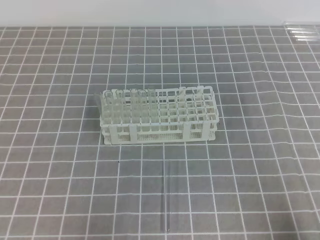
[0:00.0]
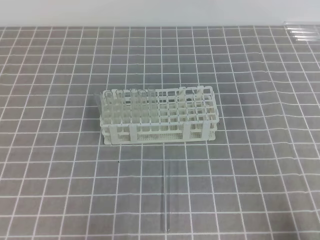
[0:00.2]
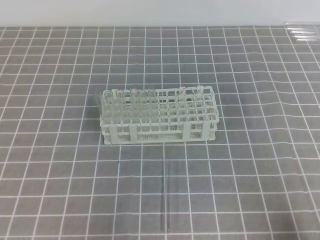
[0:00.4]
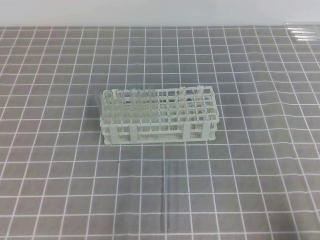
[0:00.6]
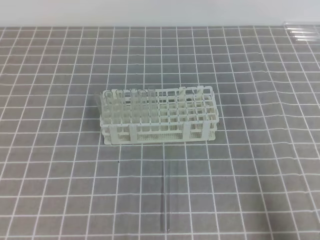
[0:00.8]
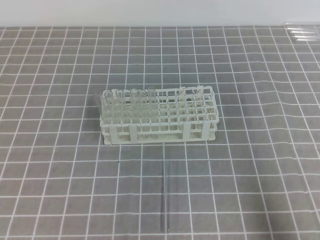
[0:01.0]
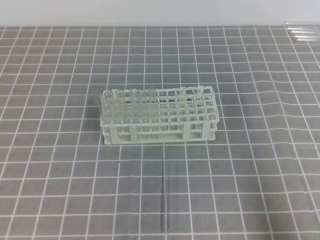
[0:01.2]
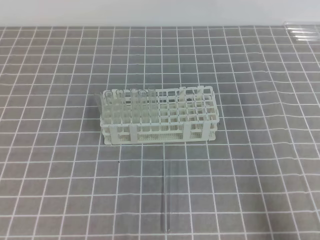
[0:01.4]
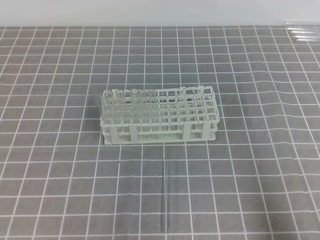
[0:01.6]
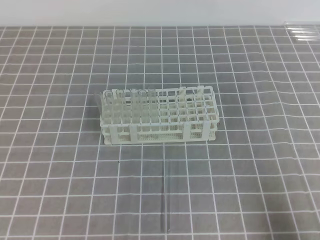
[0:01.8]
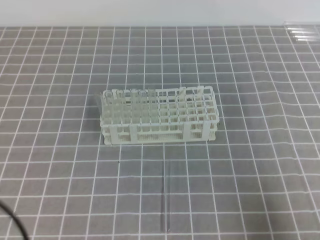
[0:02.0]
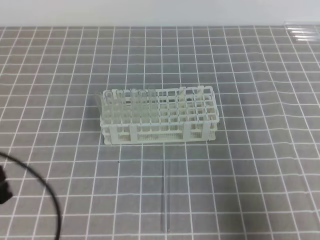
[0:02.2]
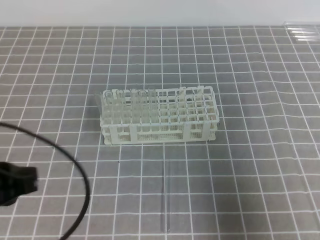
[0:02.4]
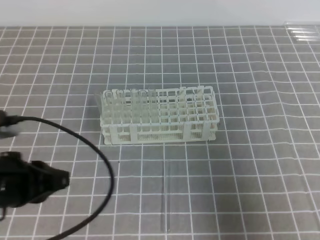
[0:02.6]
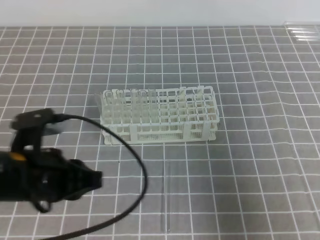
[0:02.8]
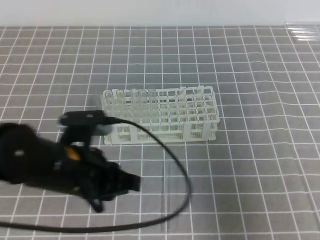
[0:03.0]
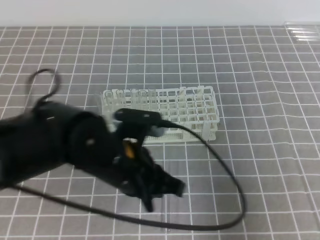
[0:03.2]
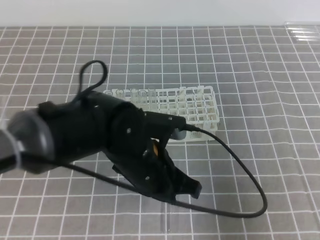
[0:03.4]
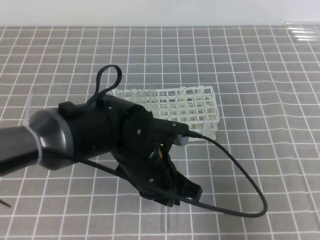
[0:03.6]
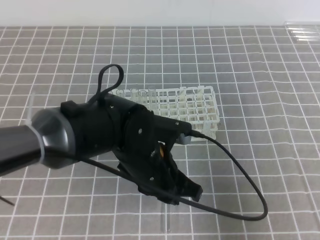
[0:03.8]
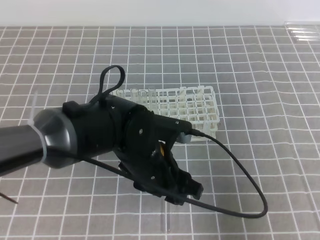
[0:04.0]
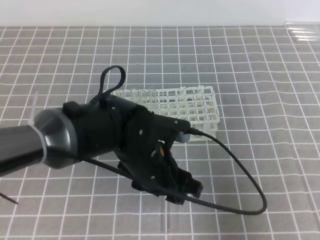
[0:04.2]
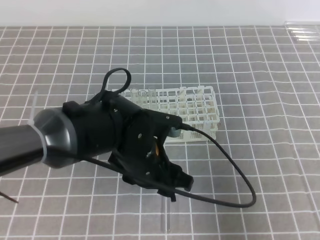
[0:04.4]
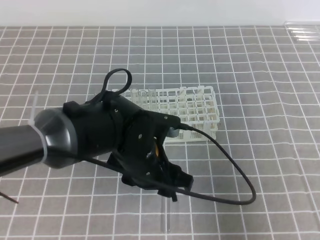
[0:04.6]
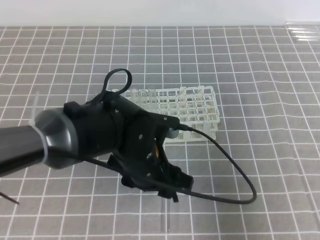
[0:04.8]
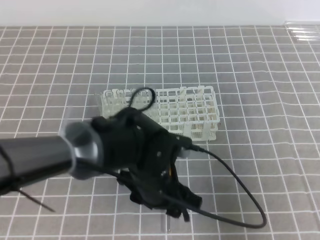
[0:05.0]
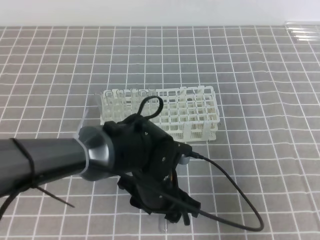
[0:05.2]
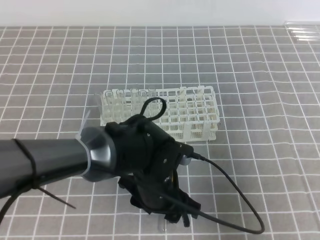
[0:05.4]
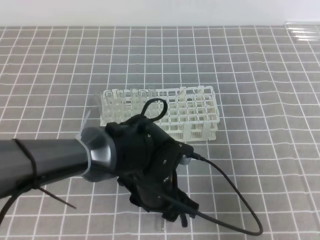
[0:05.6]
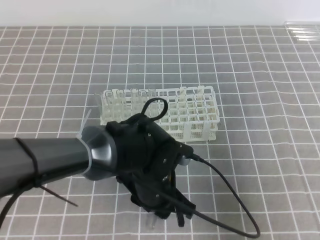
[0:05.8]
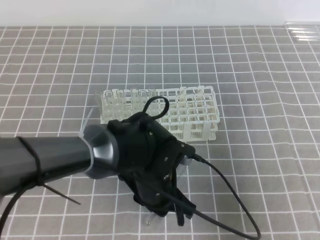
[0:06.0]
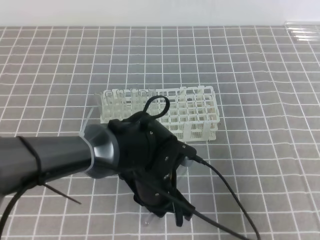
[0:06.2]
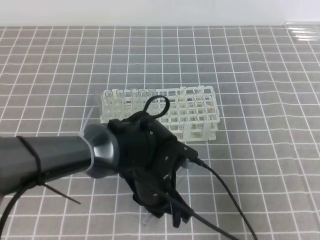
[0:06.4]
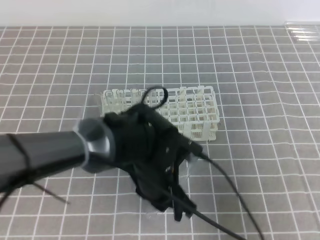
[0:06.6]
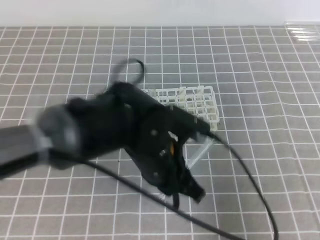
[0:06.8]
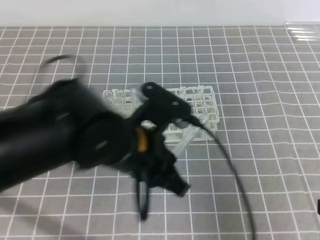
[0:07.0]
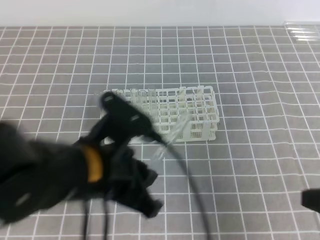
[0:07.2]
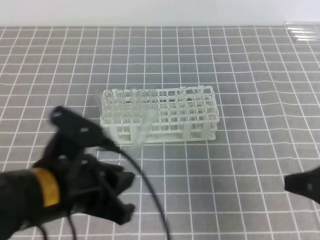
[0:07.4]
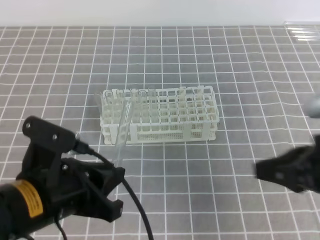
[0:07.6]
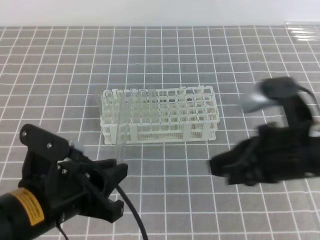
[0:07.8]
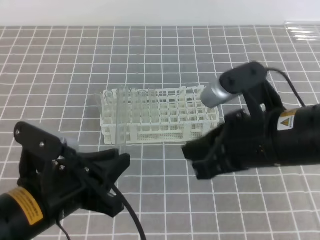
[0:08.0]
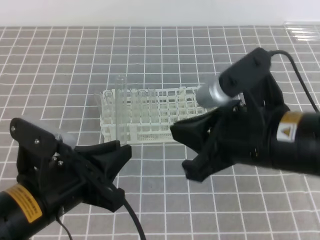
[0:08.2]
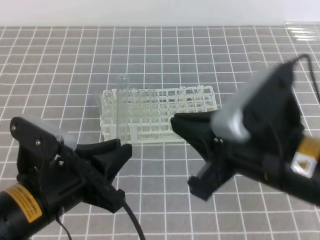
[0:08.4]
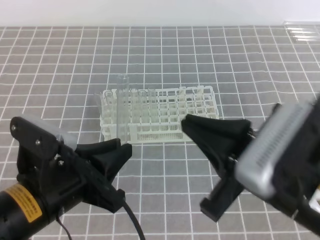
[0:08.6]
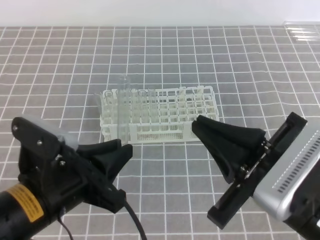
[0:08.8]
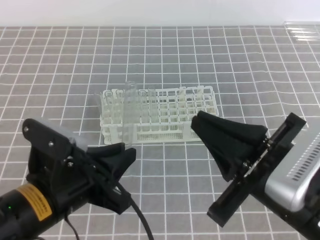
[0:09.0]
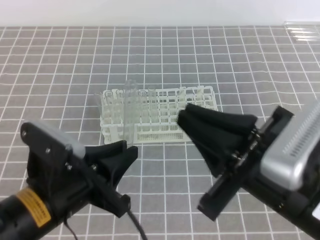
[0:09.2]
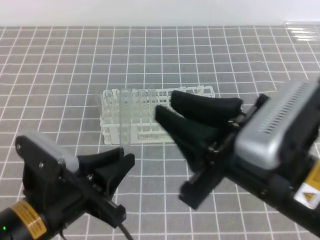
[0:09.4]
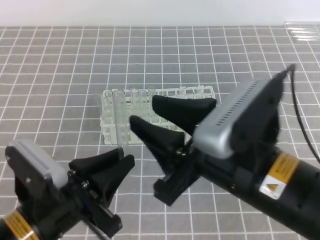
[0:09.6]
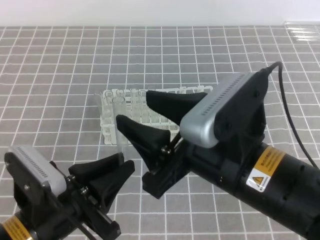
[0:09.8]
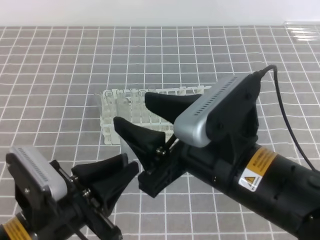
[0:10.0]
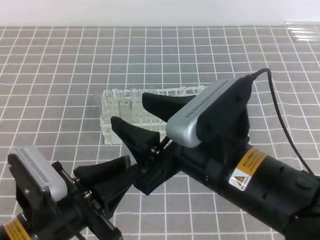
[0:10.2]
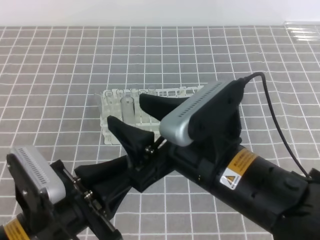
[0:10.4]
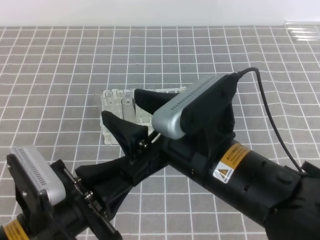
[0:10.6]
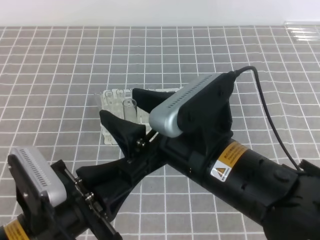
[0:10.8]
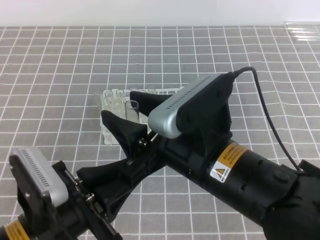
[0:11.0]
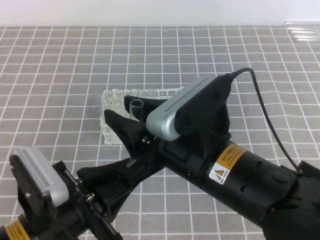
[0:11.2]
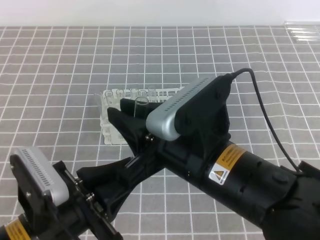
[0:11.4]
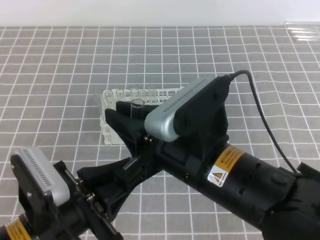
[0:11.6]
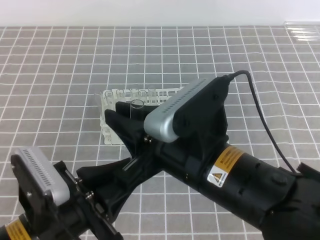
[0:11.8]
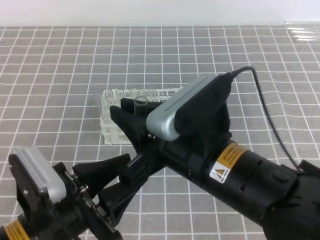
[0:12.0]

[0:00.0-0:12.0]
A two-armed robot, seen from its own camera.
0:01.6 to 0:03.0: The right gripper moves forward and upward, about 5 cm. The left gripper goes approximately 20 cm to the right and forward.
0:03.0 to 0:04.4: The left gripper goes some 10 cm to the right, and opens up.
0:04.4 to 0:06.0: The left gripper closes its fingers.
0:06.0 to 0:07.6: The right gripper is displaced to the left and forward by approximately 10 cm. Meanwhile the left gripper travels to the left, upward and backward by approximately 20 cm.
0:07.6 to 0:09.0: The right gripper heads to the left, covering approximately 10 cm.
0:09.0 to 0:10.4: The right gripper travels to the left by approximately 5 cm, and opens.
0:10.4 to 0:12.0: The left gripper opens its fingers. The right gripper closes its fingers.

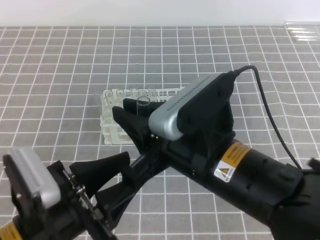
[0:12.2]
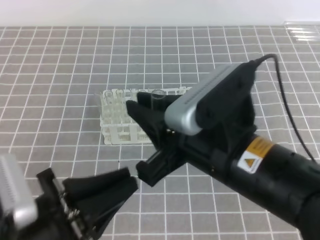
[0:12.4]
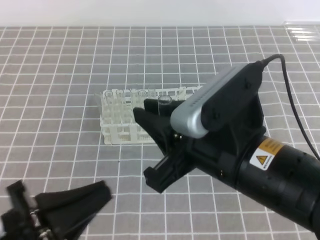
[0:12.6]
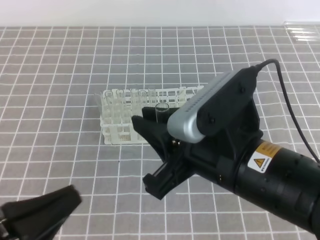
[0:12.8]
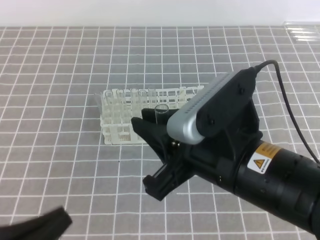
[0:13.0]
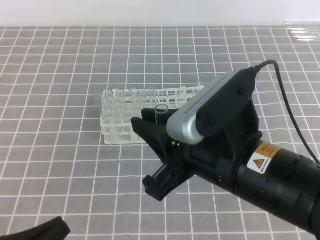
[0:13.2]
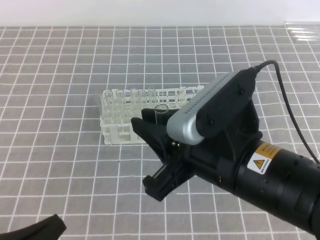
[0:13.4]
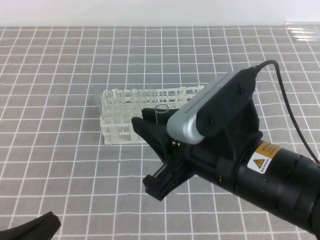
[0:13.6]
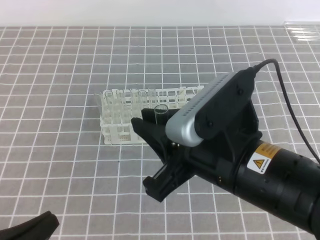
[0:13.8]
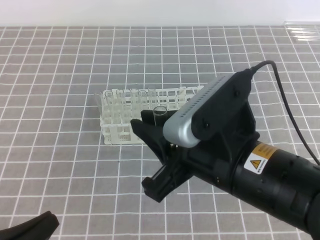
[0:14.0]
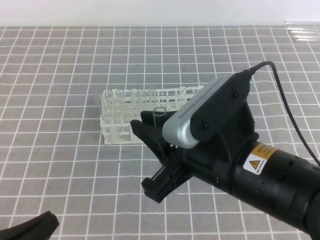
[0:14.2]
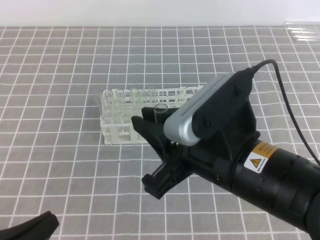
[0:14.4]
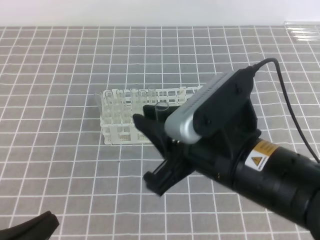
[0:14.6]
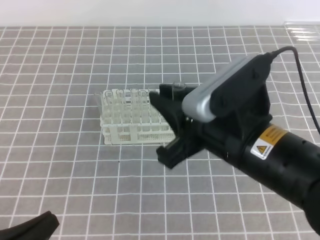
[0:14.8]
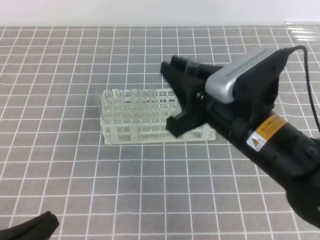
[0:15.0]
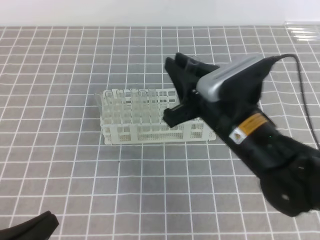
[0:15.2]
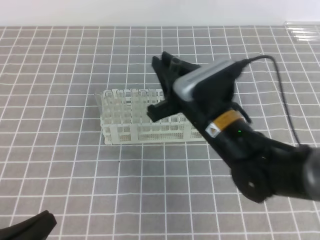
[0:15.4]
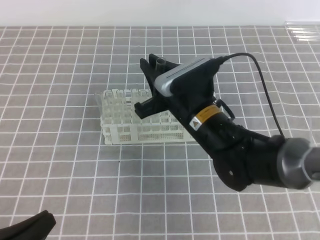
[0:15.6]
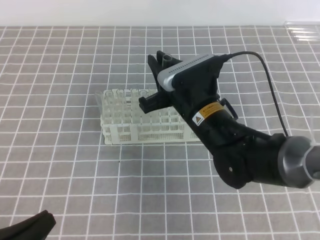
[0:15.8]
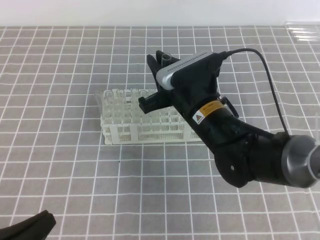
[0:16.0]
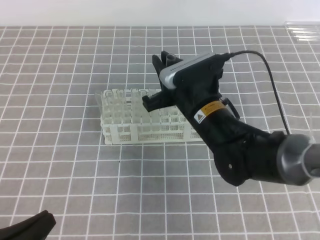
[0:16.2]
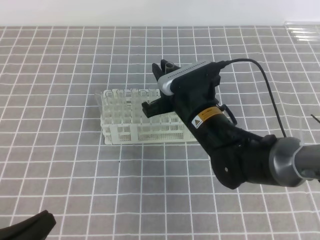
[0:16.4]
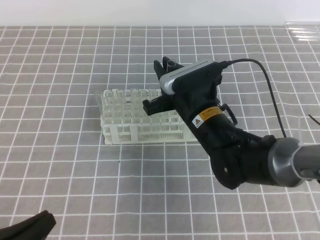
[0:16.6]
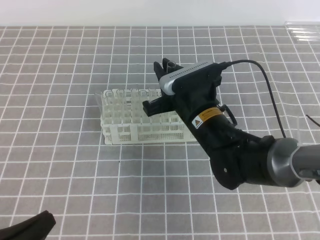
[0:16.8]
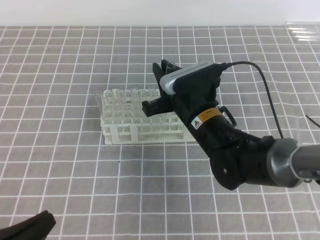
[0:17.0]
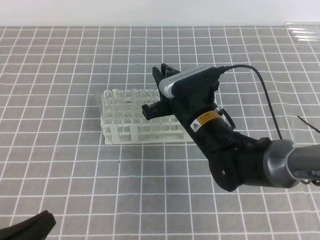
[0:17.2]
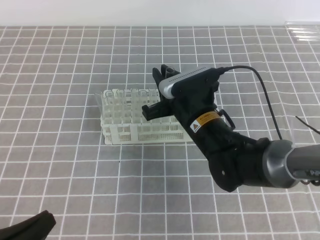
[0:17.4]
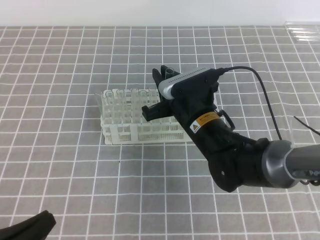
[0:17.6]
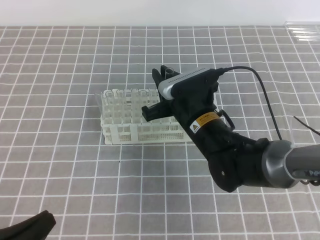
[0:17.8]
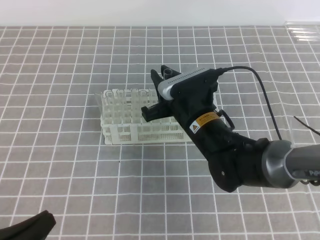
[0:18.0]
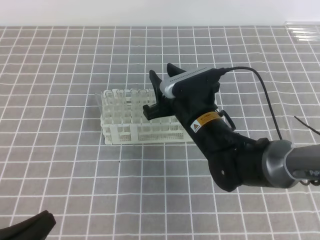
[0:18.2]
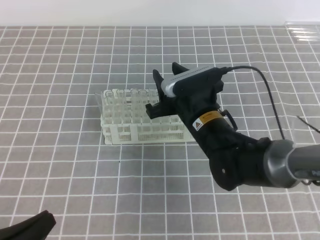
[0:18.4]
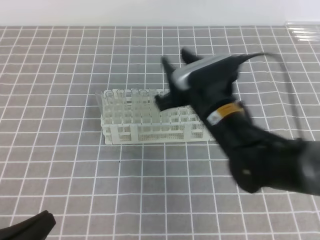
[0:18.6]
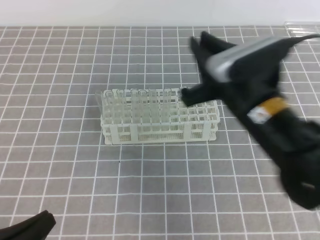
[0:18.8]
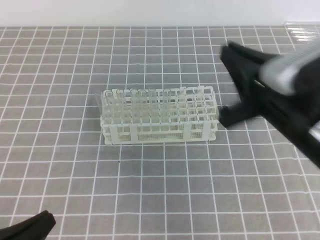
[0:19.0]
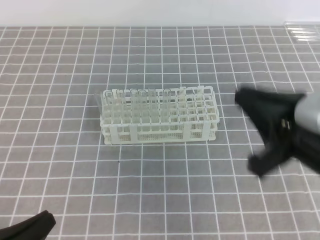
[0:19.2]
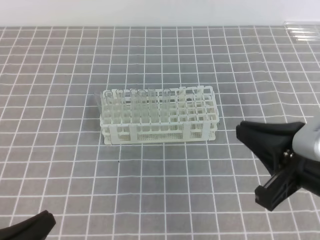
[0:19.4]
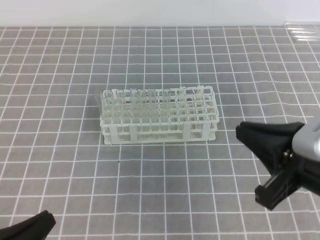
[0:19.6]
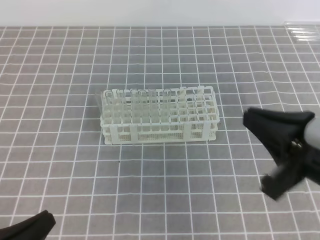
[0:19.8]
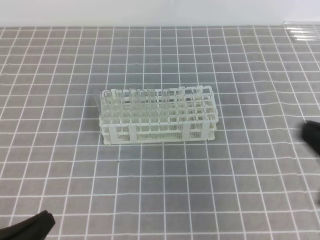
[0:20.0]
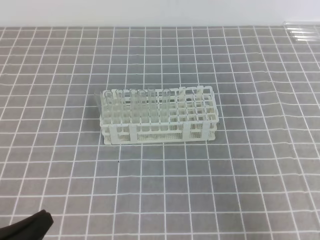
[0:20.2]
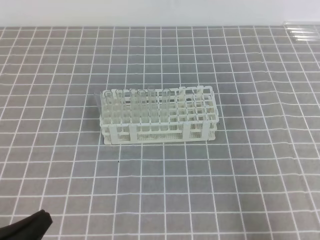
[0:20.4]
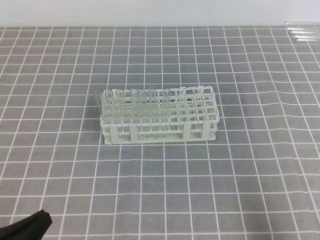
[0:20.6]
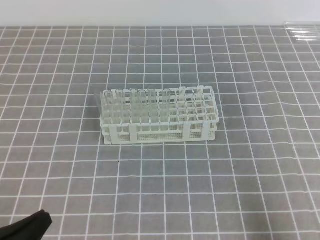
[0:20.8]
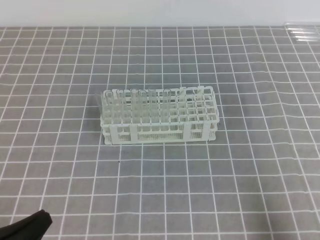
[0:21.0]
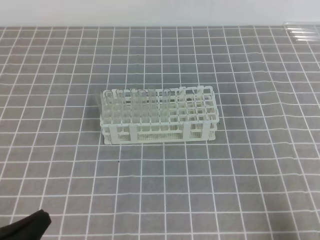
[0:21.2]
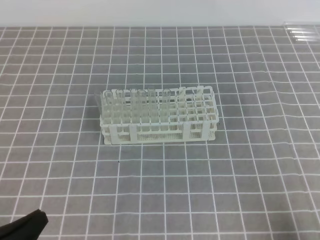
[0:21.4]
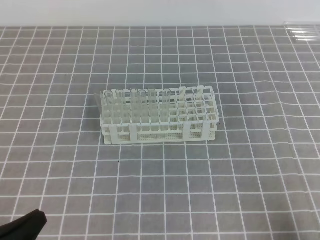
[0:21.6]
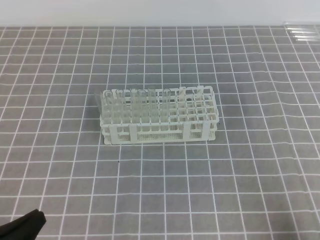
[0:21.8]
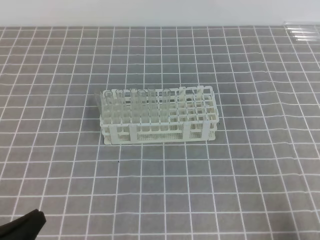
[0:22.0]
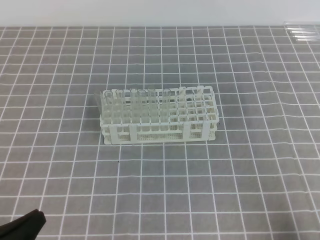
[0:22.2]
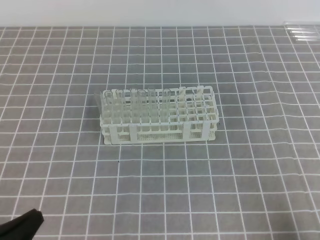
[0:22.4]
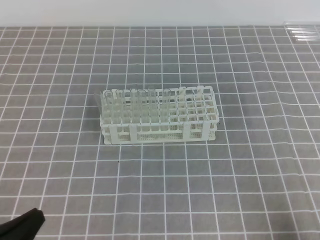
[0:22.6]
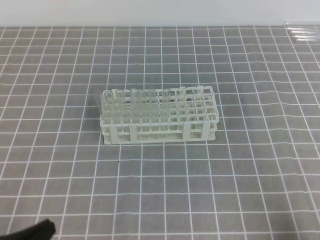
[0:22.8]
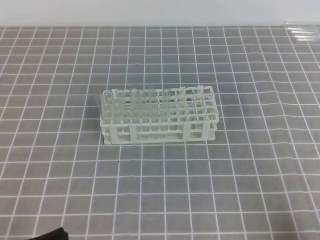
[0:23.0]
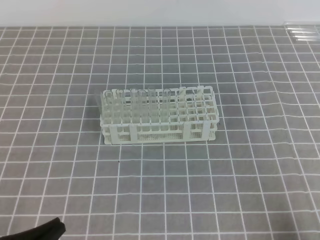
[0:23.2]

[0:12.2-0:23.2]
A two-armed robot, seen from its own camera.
0:12.2 to 0:13.8: The left gripper goes some 10 cm to the left and backward, and closes.
0:13.8 to 0:15.4: The right gripper shifts roughly 15 cm forward and downward.
0:15.4 to 0:17.0: The right gripper changes place by some 5 cm.
0:17.0 to 0:18.4: The right gripper opens.
0:18.4 to 0:20.0: The right gripper is displaced backward, to the right and upward by approximately 30 cm, and closes its fingers.
0:20.0 to 0:21.6: The right gripper heads downward, to the right and backward, covering approximately 15 cm.
0:21.6 to 0:23.2: The grippers make only small movements.
